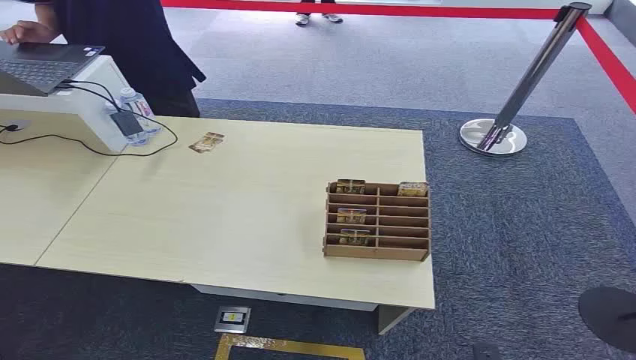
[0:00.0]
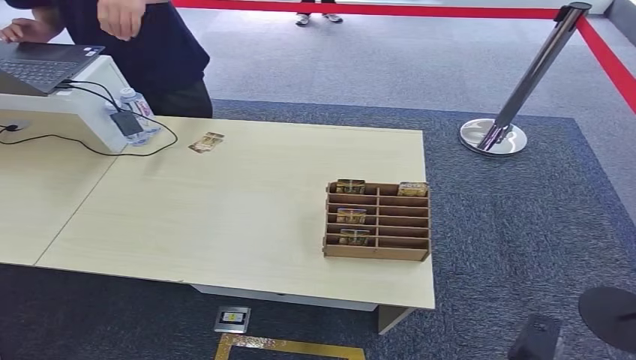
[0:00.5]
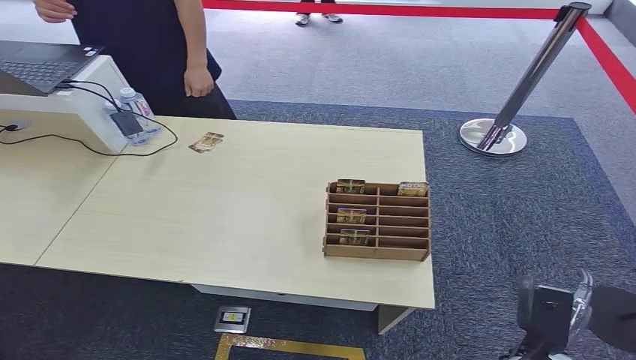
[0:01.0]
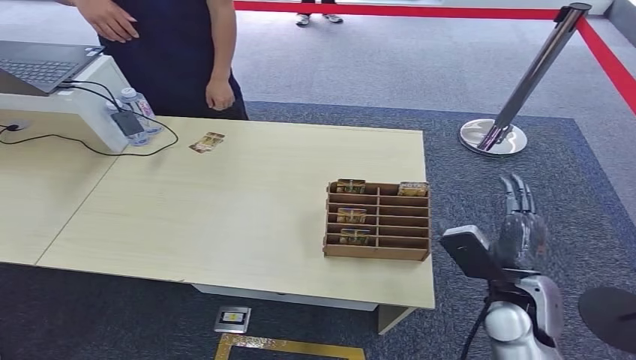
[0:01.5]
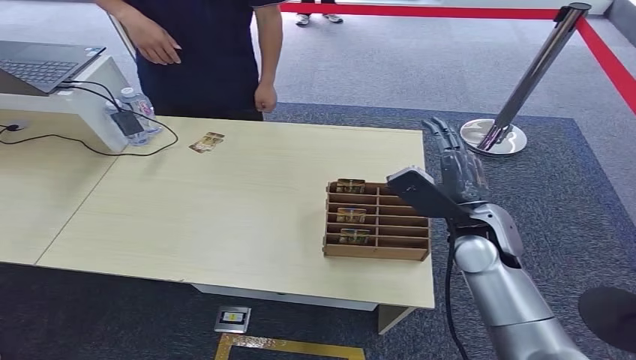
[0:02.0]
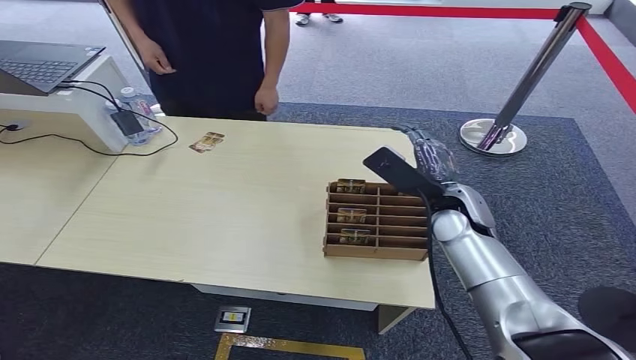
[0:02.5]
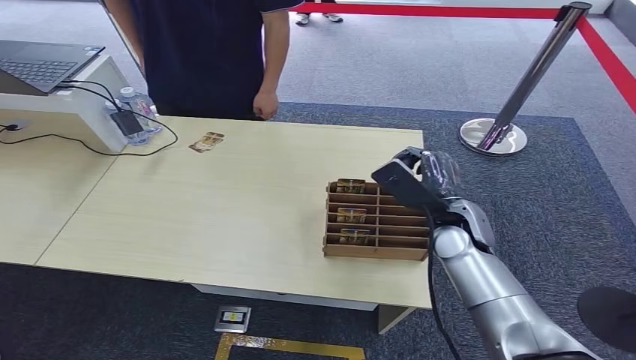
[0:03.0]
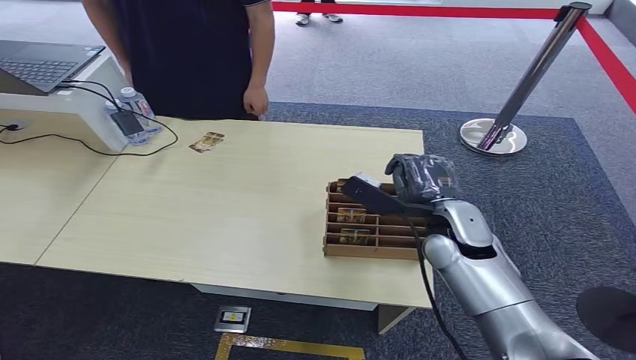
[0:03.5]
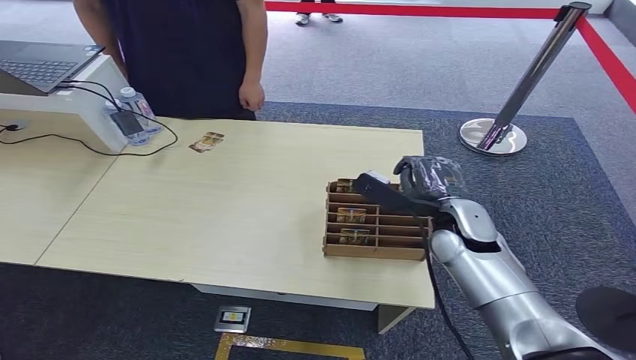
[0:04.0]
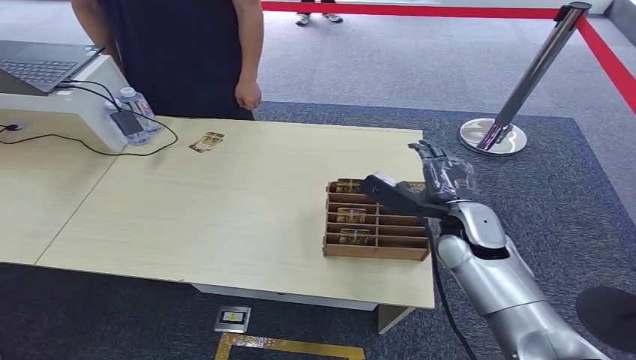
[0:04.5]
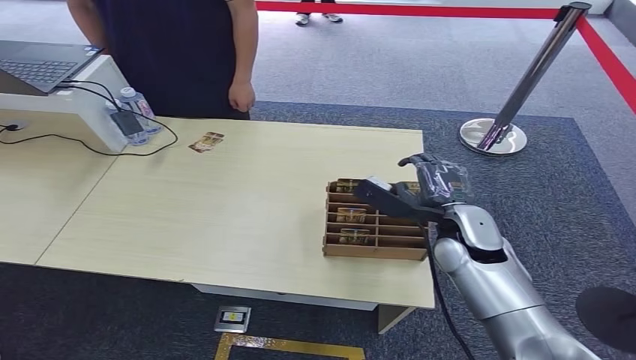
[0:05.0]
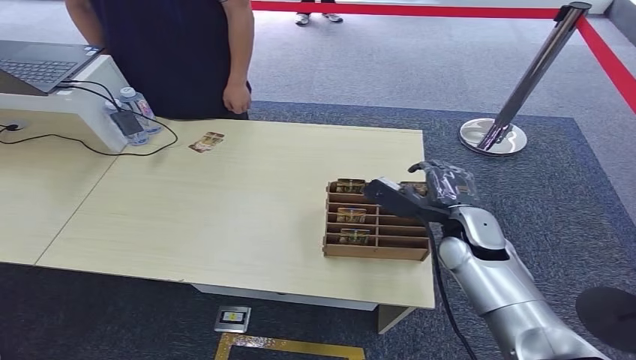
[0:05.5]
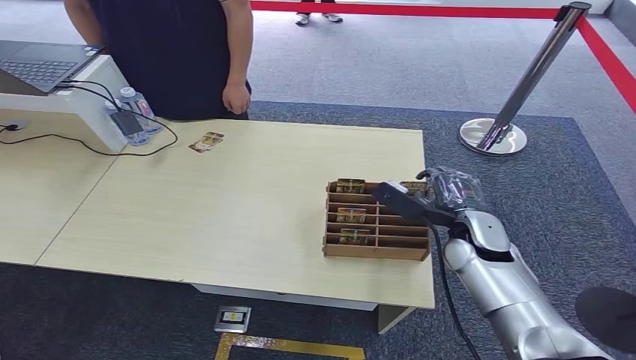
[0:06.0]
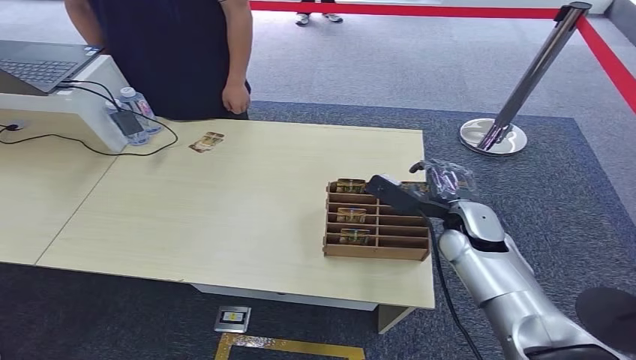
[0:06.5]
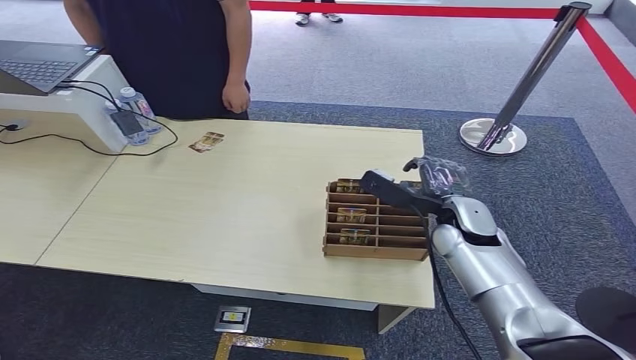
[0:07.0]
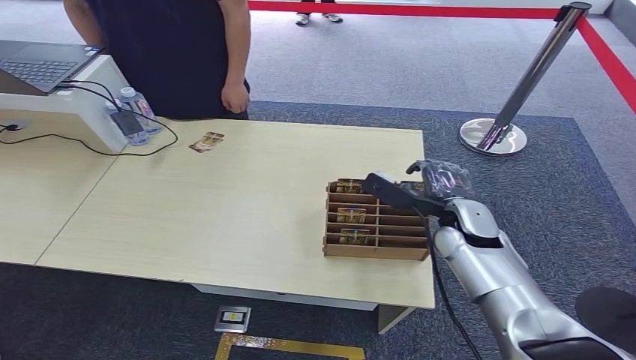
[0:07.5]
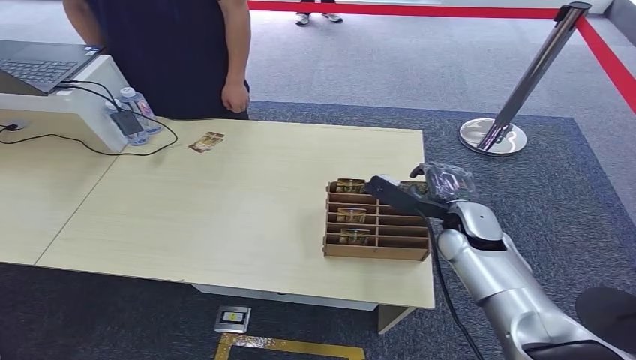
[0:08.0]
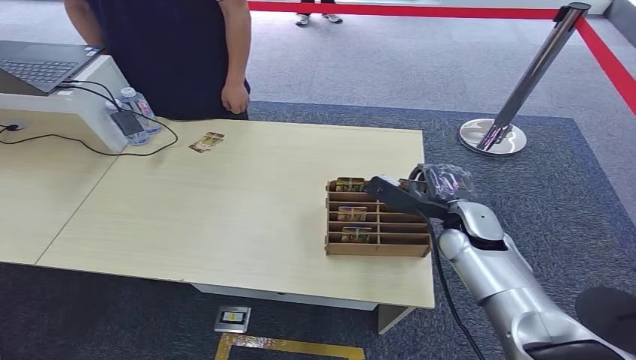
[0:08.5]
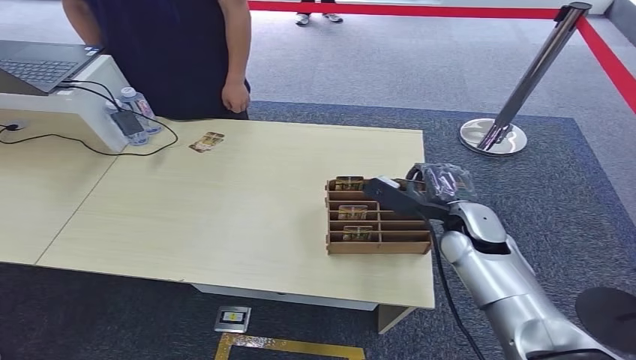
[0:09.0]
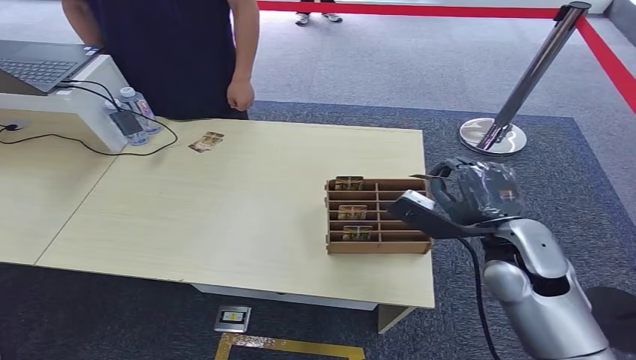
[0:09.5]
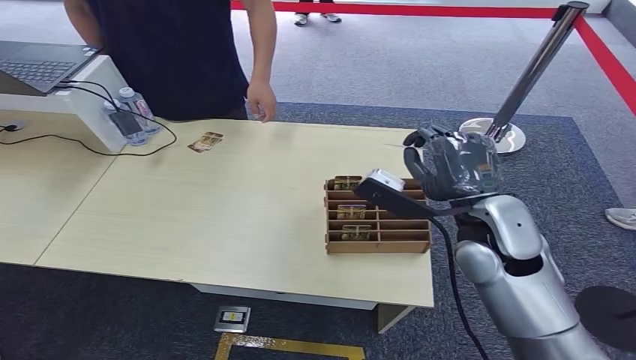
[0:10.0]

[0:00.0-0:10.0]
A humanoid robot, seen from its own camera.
Step, 0:00.0 to 0:10.0: Pick up the room card from the card holder.
0:04.0 to 0:08.0: The hands stay close to where they were, moving slightly.
0:08.0 to 0:10.0: The right hand shifts roughly 15 cm upward and backward.
